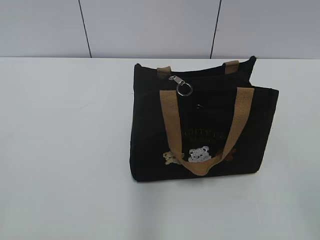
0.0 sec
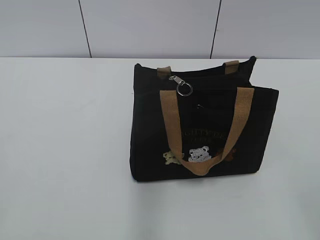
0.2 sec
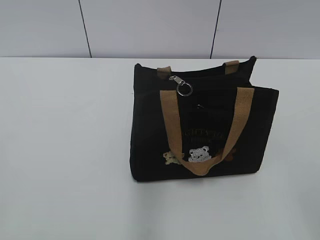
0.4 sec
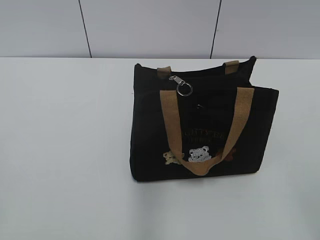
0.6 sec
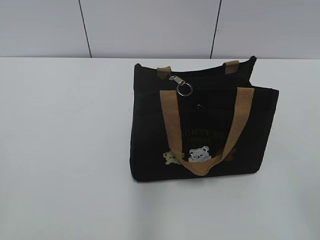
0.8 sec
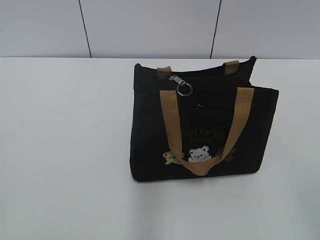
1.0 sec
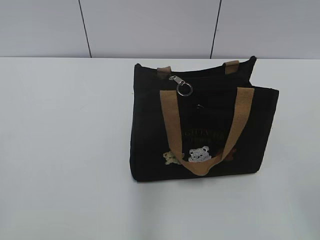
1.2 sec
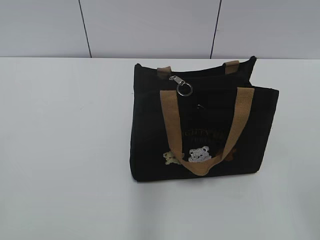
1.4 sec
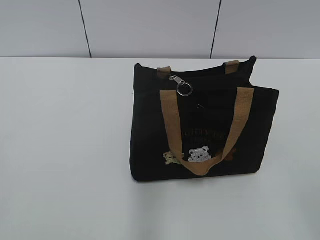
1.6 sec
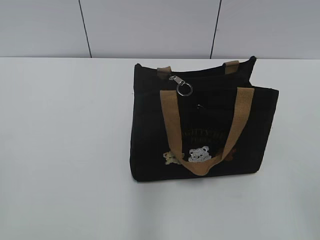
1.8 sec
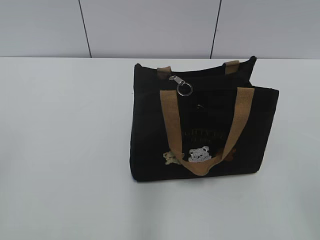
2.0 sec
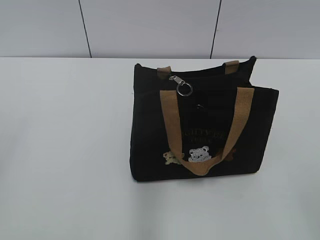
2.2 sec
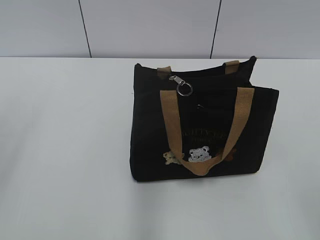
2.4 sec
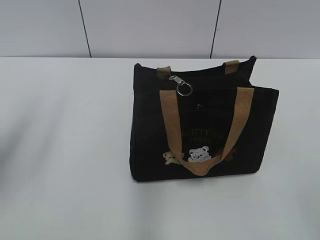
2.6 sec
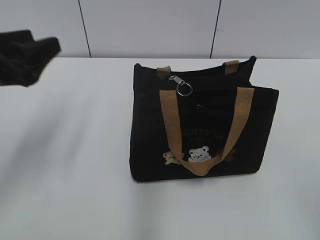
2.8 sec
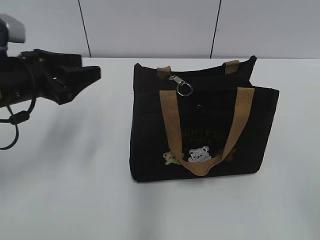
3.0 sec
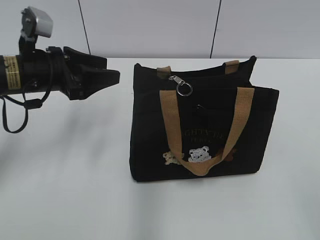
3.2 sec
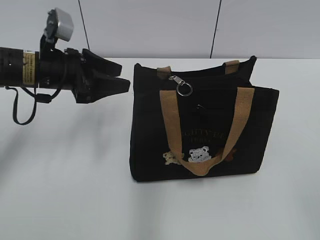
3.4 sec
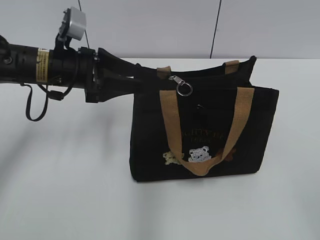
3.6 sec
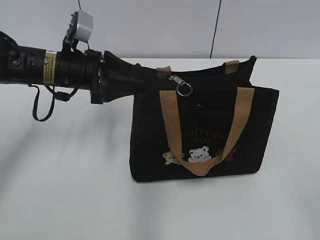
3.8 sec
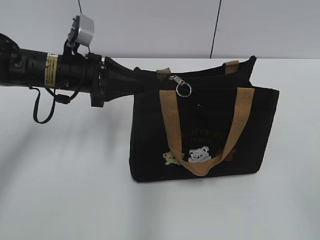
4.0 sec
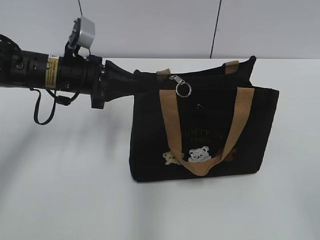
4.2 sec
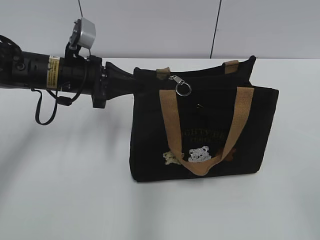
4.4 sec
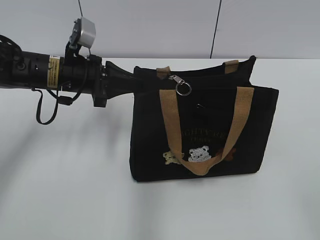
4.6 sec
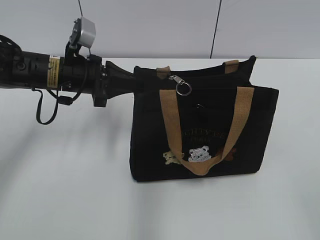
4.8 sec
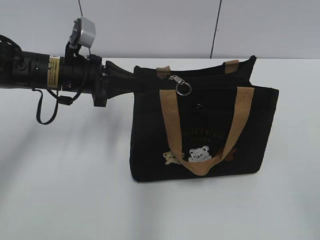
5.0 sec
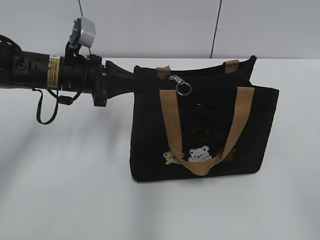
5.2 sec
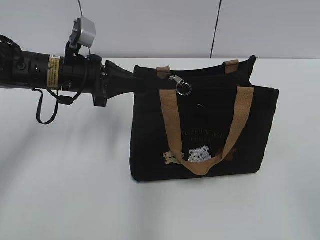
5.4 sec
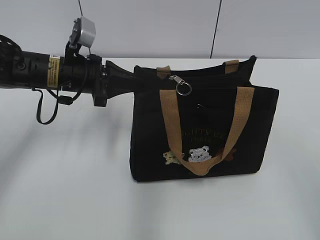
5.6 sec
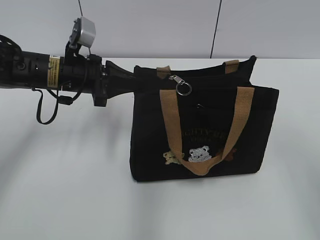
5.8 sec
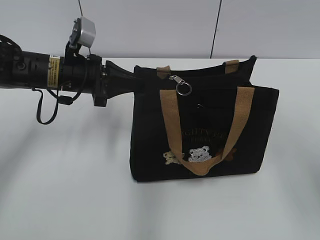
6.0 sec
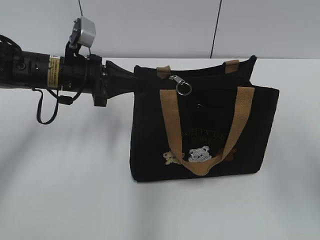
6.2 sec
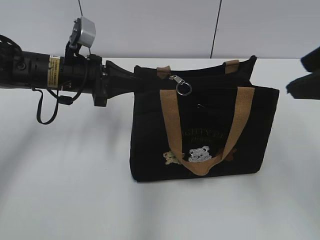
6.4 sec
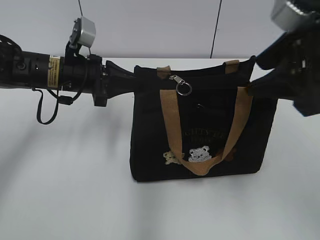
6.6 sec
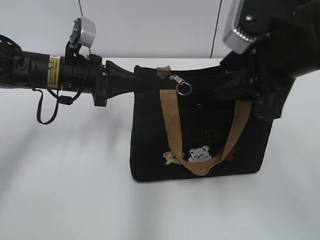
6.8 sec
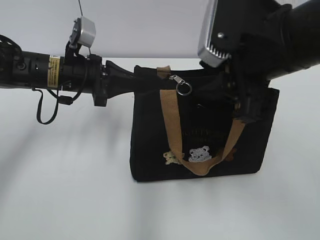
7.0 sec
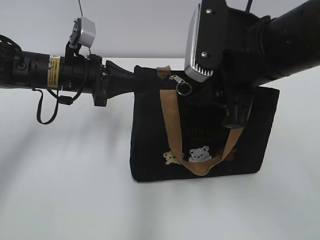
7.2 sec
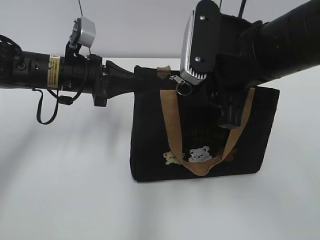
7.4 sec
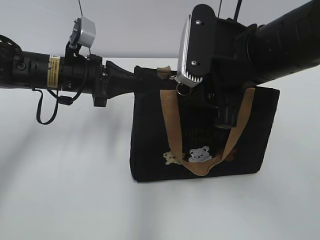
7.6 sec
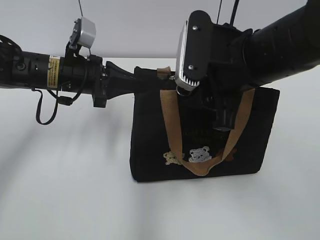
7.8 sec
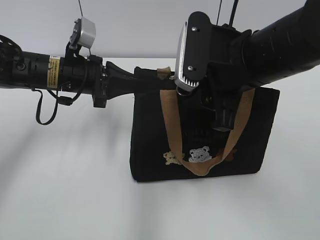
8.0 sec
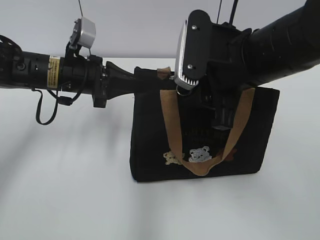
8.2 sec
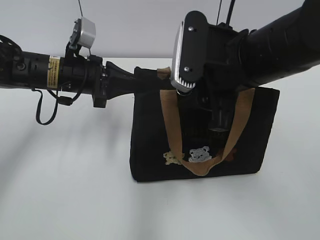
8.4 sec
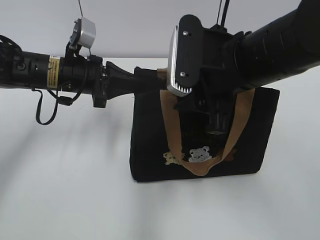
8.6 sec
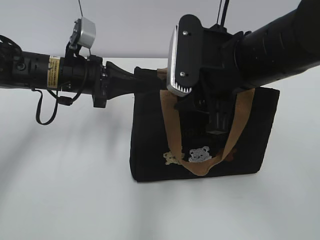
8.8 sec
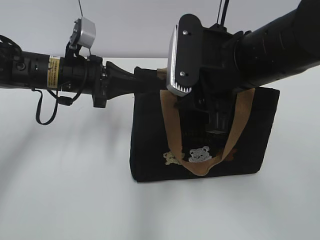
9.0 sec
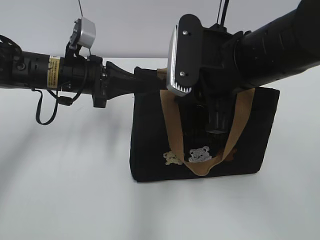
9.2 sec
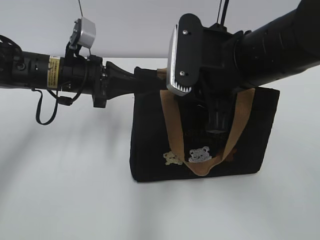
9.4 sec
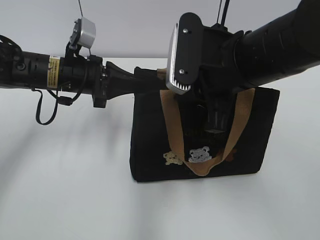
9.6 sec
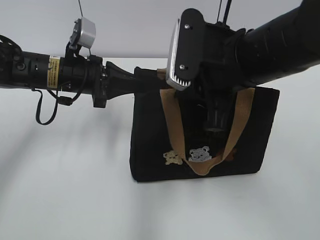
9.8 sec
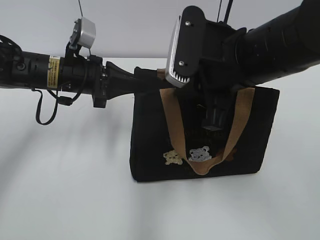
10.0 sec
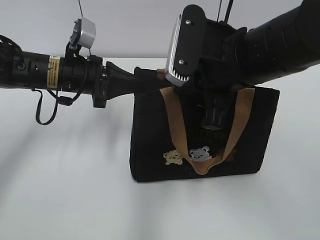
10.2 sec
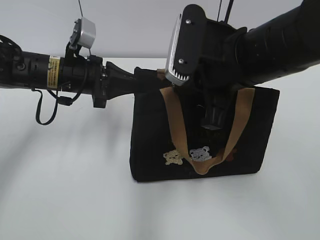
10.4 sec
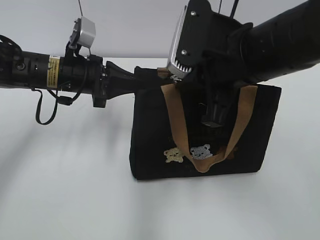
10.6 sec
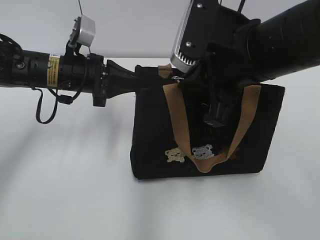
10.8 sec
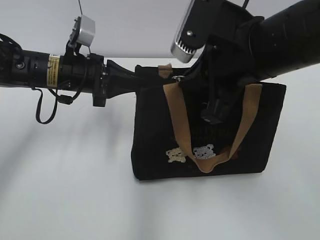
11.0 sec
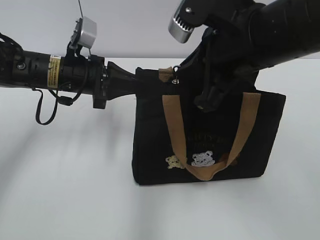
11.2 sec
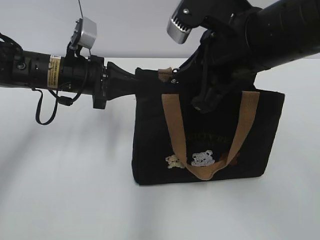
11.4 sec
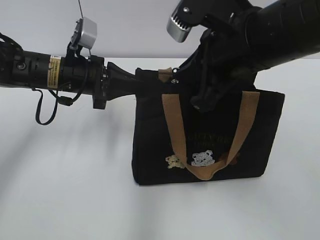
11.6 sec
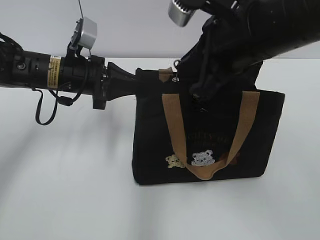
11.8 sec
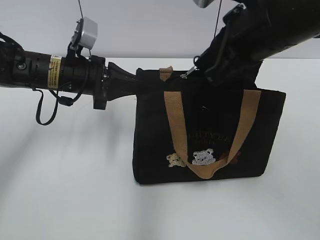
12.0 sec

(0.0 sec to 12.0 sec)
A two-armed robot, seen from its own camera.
1.6 sec - 3.0 sec: The left gripper travels forward by about 30 cm, and opens.
3.0 sec - 4.4 sec: The left gripper heads forward and to the right, covering some 10 cm, and closes up.
4.4 sec - 6.0 sec: The right gripper goes some 15 cm forward and upward.
6.0 sec - 7.6 sec: The right gripper travels to the left and forward by roughly 20 cm.
7.6 sec - 9.0 sec: The grippers move only a little.
9.0 sec - 10.4 sec: The right gripper closes.

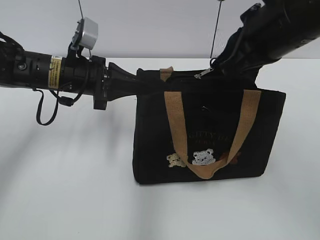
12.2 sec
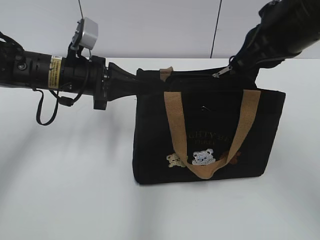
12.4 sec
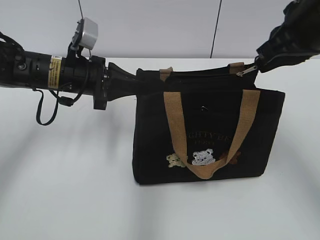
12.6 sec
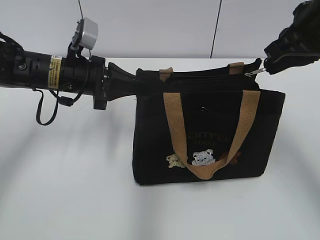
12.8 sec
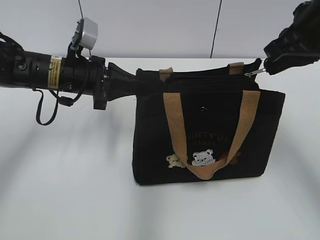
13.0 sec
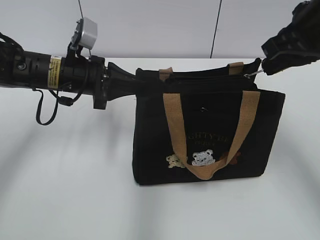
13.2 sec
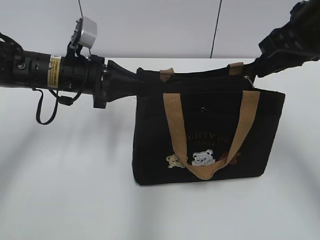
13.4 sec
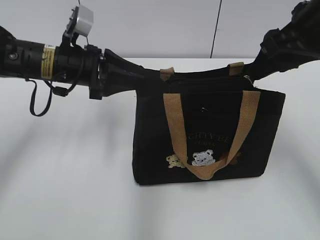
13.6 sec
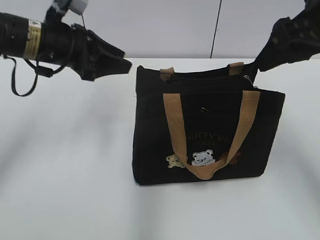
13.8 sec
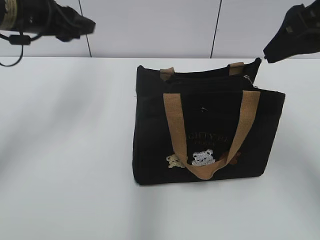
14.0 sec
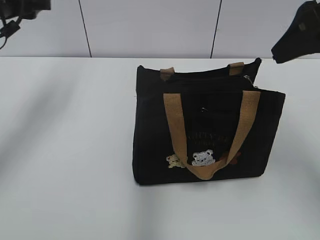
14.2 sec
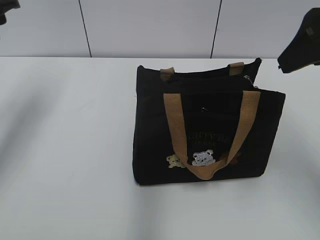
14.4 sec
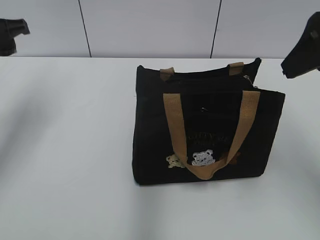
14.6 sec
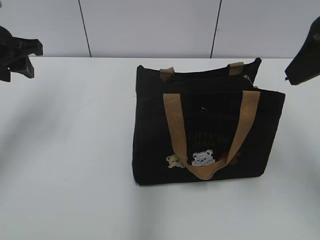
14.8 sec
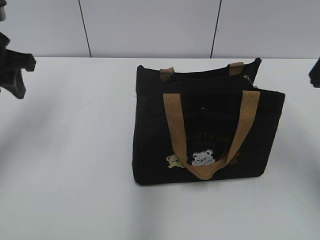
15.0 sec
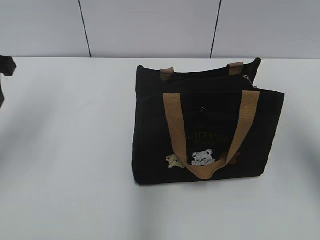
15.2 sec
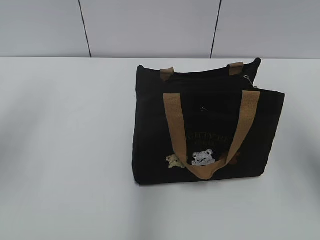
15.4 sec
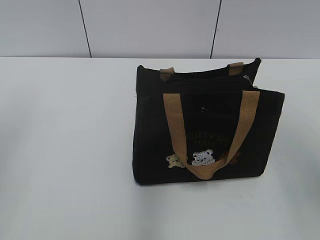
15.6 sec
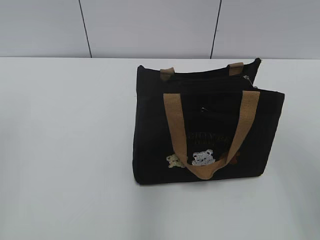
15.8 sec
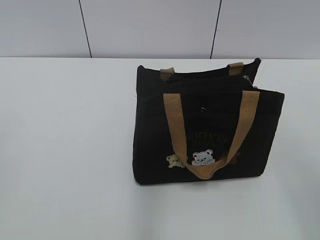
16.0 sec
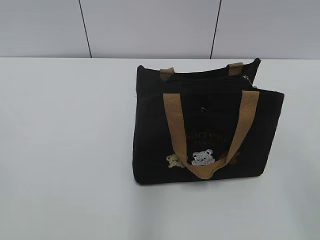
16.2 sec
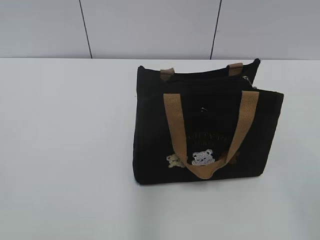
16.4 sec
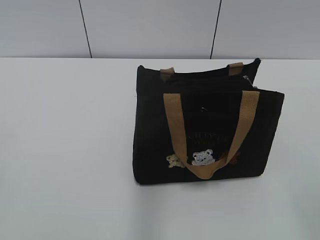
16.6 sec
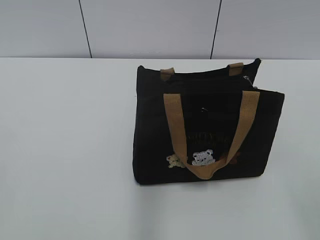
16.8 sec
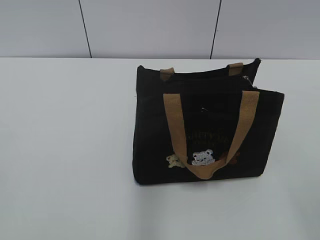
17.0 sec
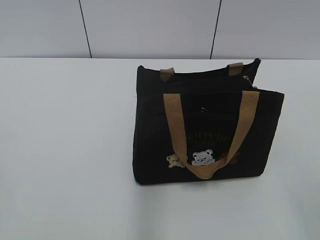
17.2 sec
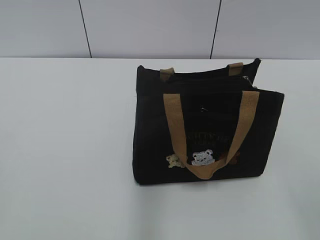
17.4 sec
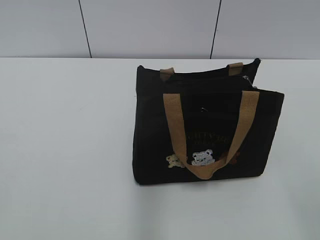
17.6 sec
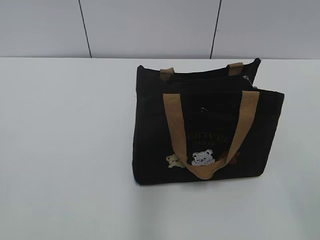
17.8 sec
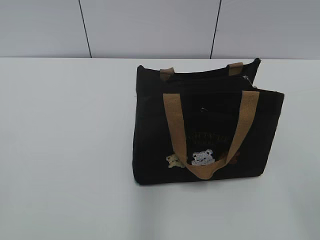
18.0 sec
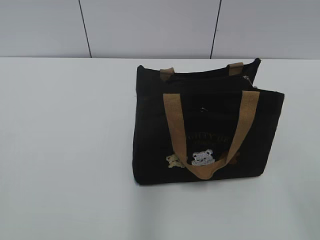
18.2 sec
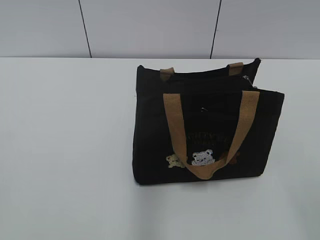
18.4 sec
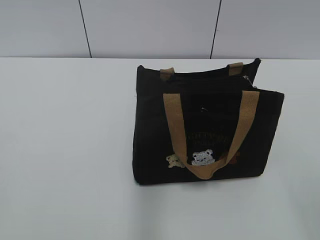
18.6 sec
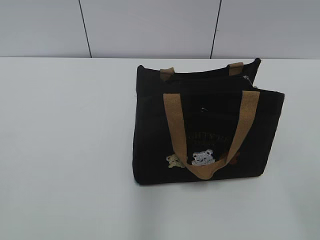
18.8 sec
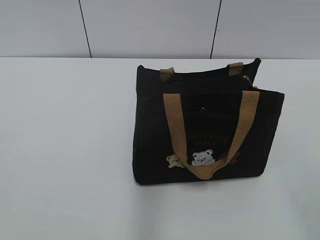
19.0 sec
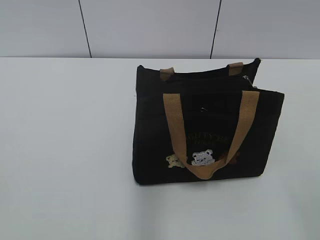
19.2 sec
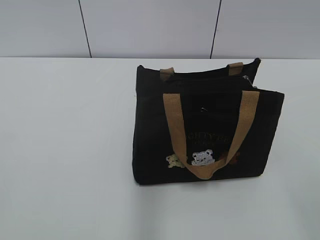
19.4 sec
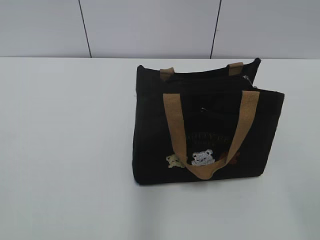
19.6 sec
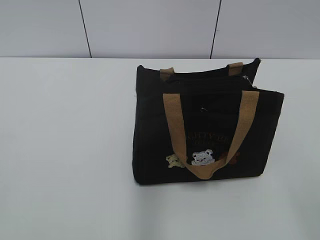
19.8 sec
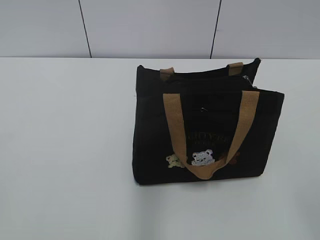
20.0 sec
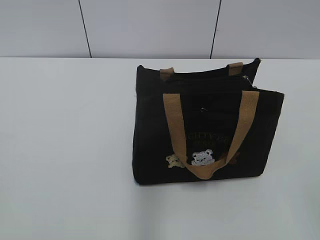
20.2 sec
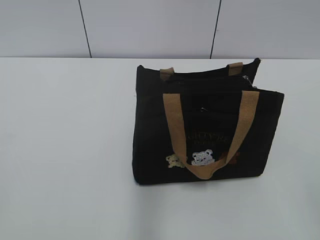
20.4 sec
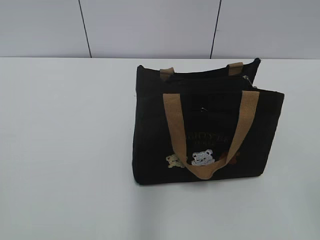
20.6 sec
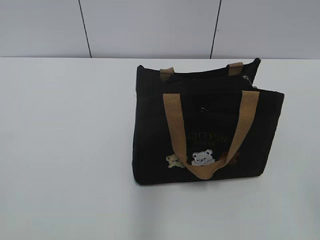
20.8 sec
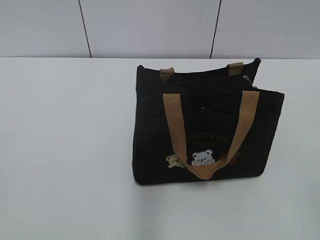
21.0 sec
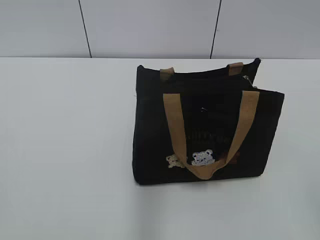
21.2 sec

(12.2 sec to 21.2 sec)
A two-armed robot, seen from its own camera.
12.2 sec - 13.8 sec: The right gripper heads to the right, covering roughly 5 cm, and opens. The left gripper travels upward by approximately 5 cm, and opens up.
13.8 sec - 15.2 sec: The right gripper goes some 5 cm to the right. The left gripper shifts about 10 cm to the left and backward.
15.2 sec - 16.6 sec: The grippers both shift backward by approximately 30 cm.
18.2 sec - 19.8 sec: The two grippers keep their place.
